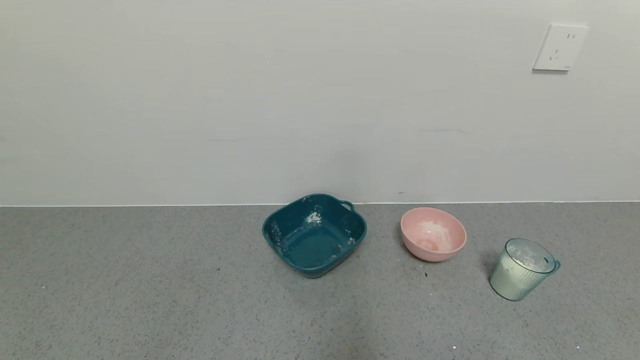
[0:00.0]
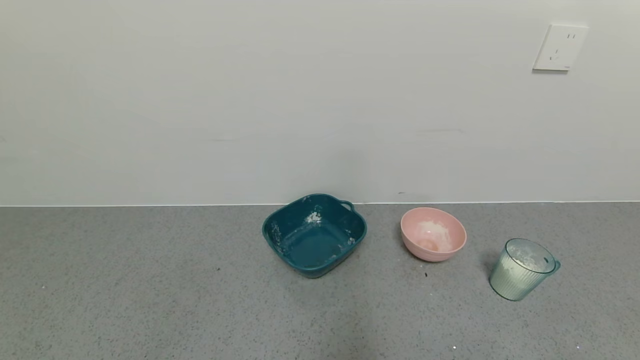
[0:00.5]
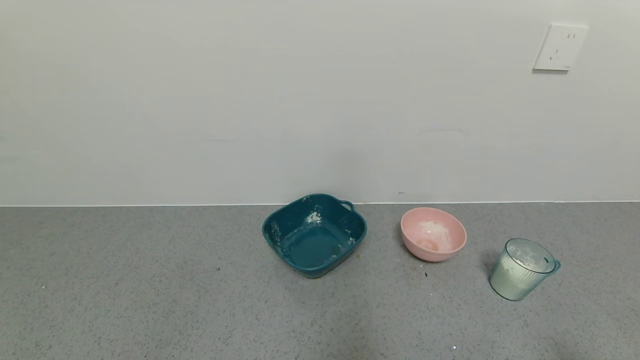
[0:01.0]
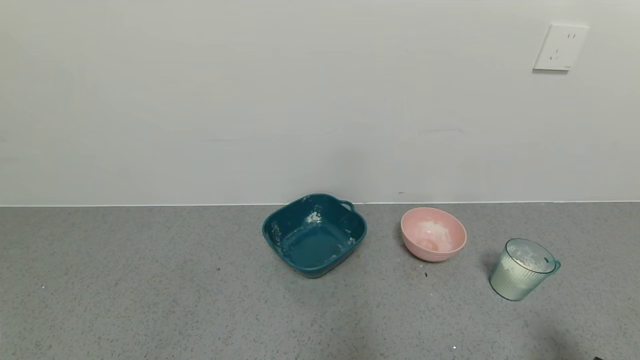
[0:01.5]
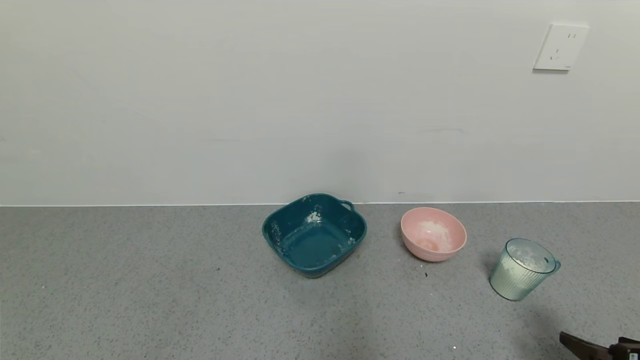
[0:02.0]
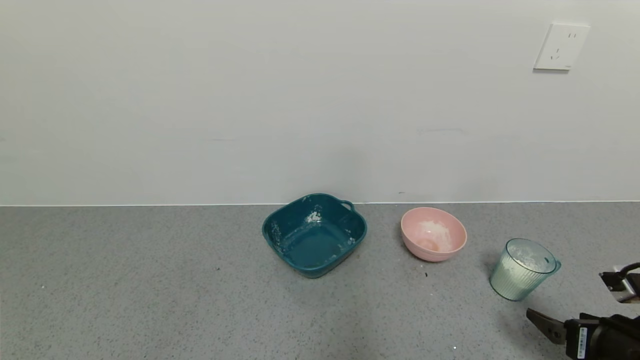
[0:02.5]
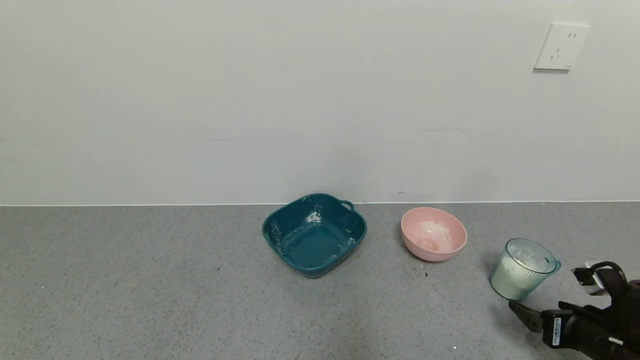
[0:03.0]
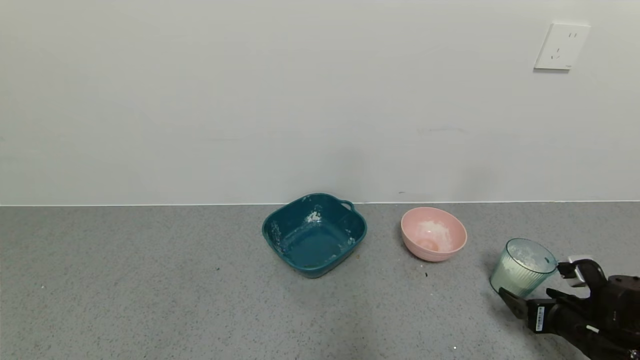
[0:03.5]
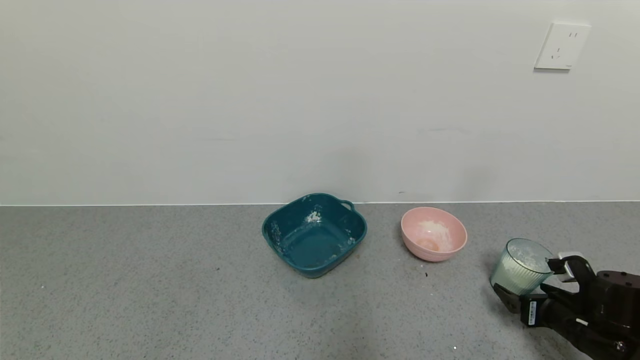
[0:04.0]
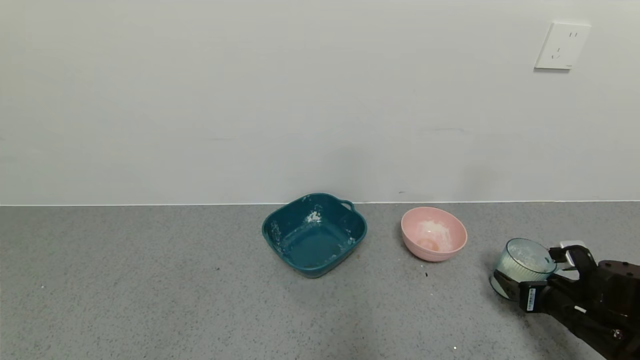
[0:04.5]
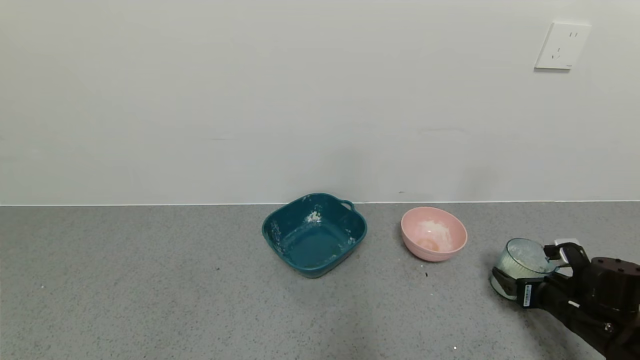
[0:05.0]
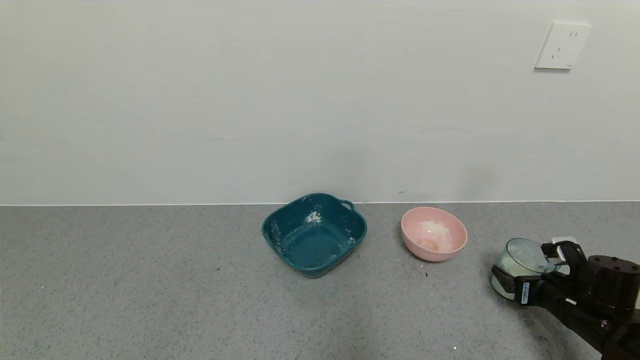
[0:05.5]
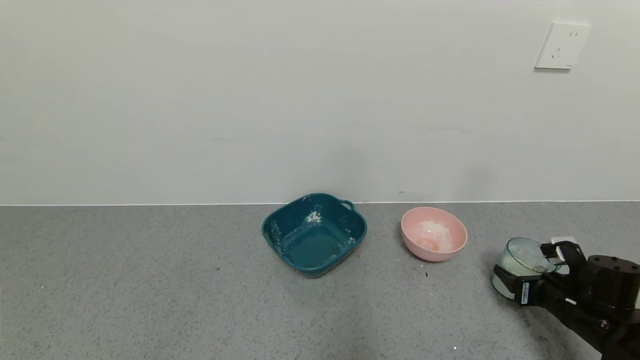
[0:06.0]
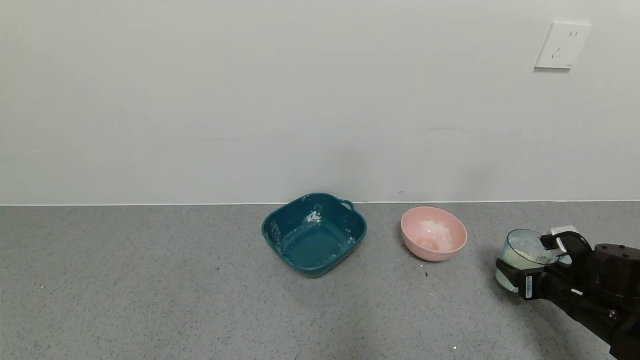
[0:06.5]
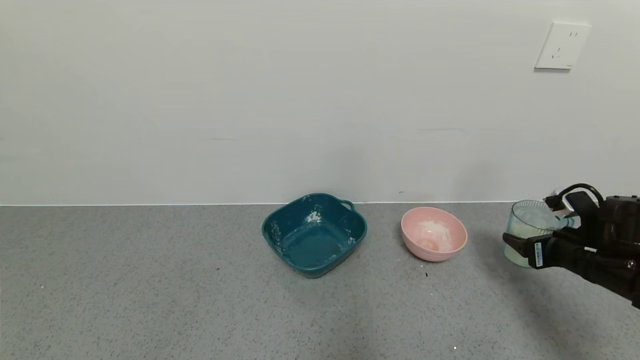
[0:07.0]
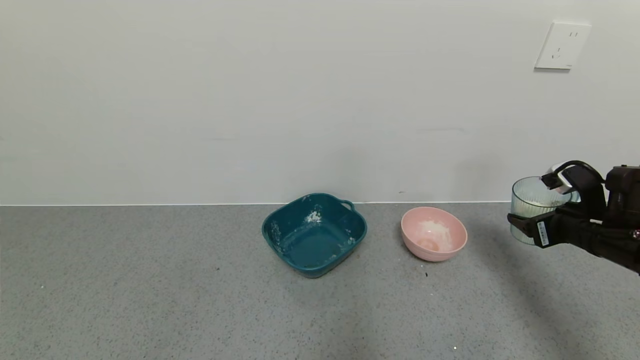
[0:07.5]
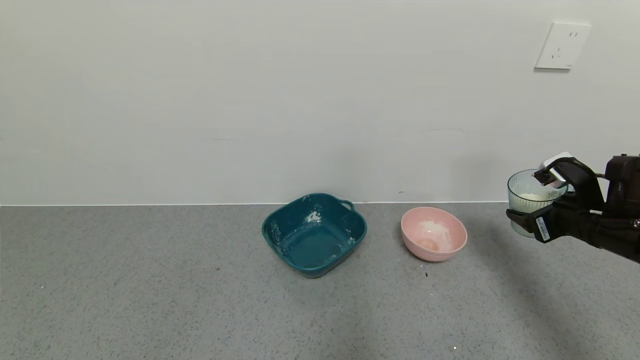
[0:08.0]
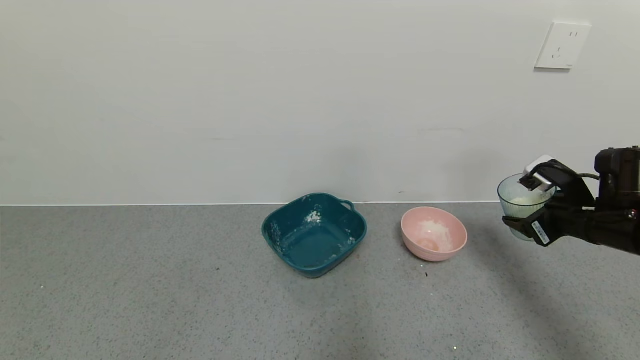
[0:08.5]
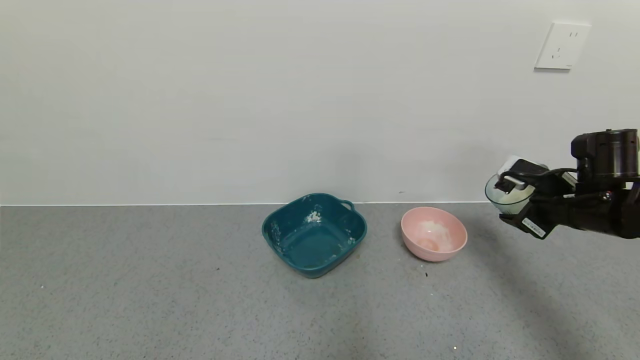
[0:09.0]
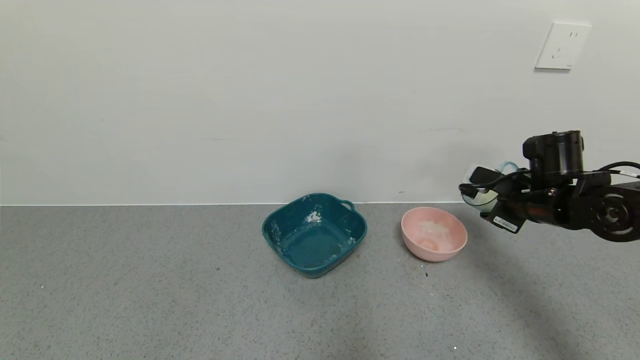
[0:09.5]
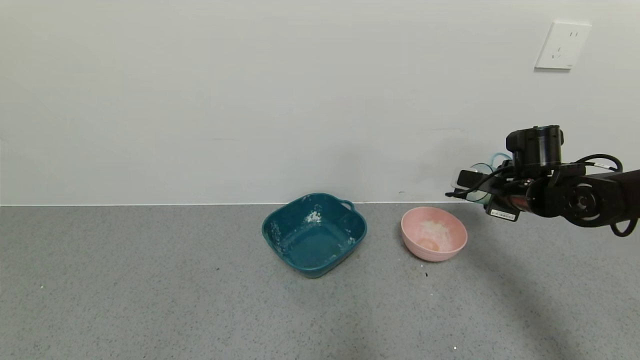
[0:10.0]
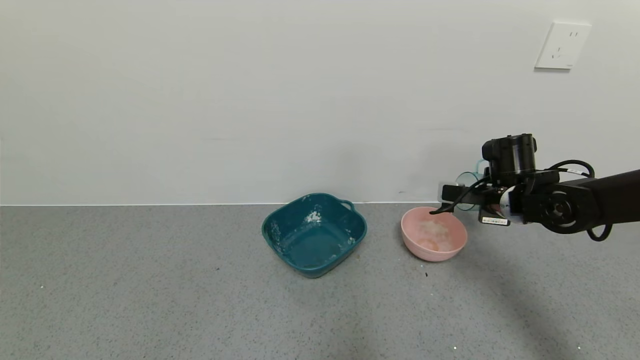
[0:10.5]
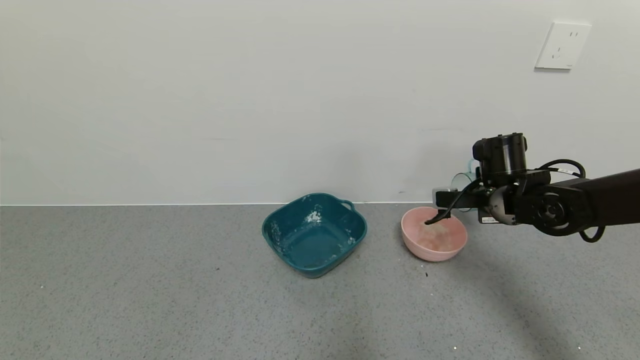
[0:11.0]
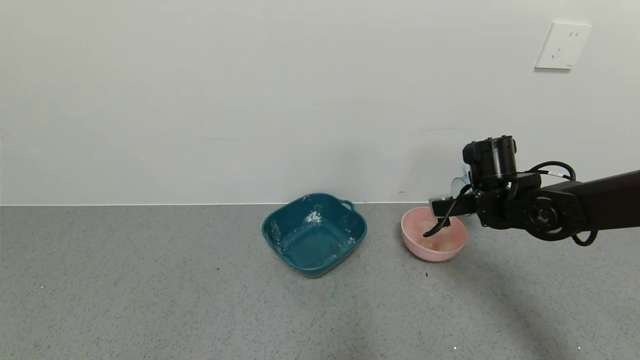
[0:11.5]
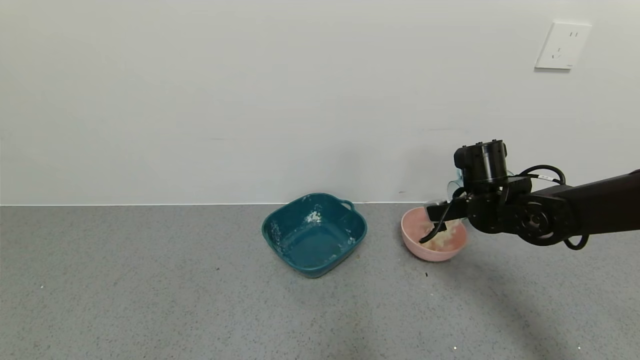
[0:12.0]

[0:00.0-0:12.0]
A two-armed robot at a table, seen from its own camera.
Task of the whole recording: use a gripper to pick up the cup and pour the powder into a bowl or tray.
Step, 0:00.0 to 0:05.5: Grasp the glass of powder with the right gripper.
0:00.0 to 0:02.0: The right gripper goes approximately 15 cm forward.
0:02.0 to 0:04.0: The right gripper moves forward and downward, some 15 cm.
0:04.0 to 0:06.0: The right gripper closes its fingers.
0:06.0 to 0:08.0: The right gripper travels upward by approximately 15 cm.
0:08.0 to 0:10.0: The right gripper moves forward and to the left, about 10 cm.
0:10.0 to 0:12.0: The right gripper heads to the left, covering roughly 5 cm.

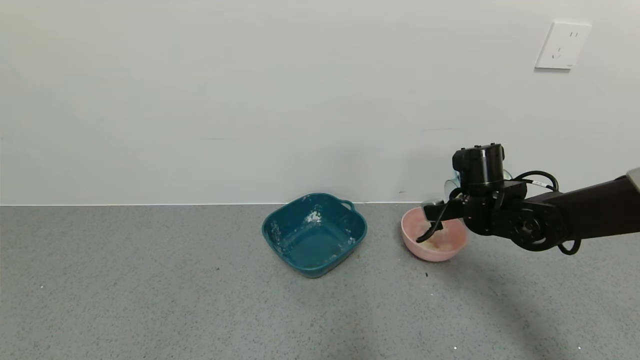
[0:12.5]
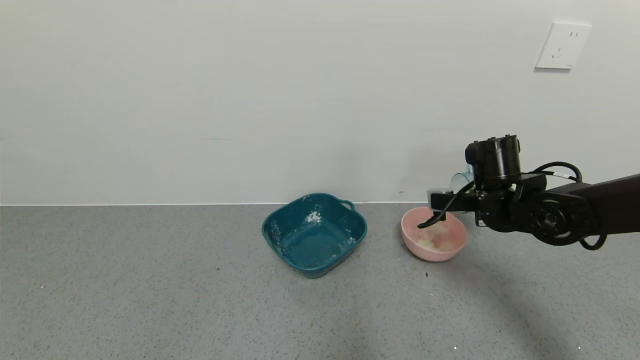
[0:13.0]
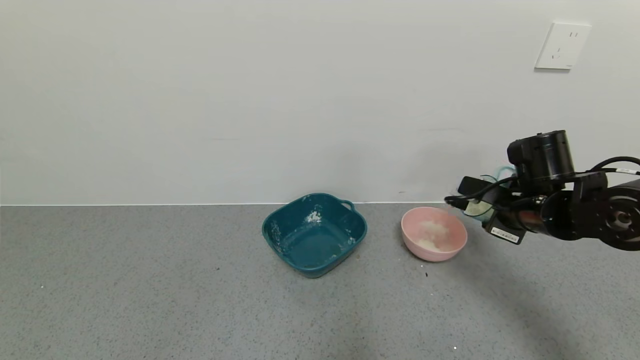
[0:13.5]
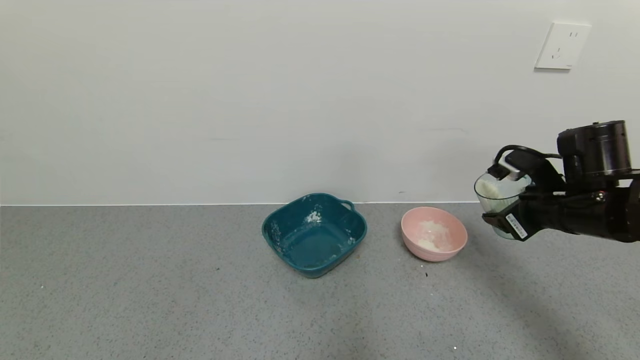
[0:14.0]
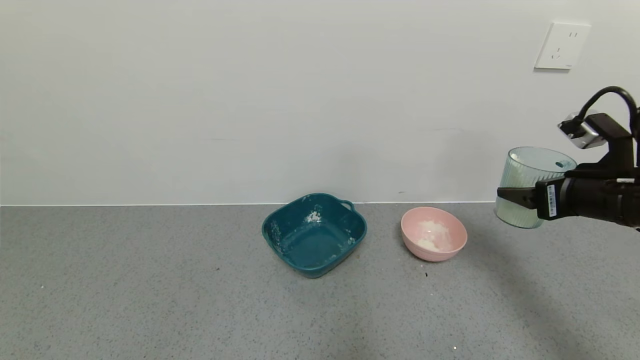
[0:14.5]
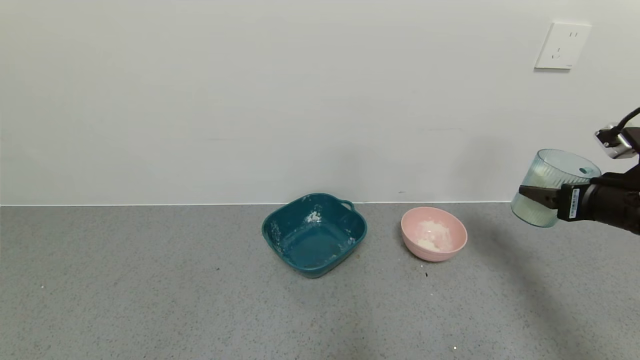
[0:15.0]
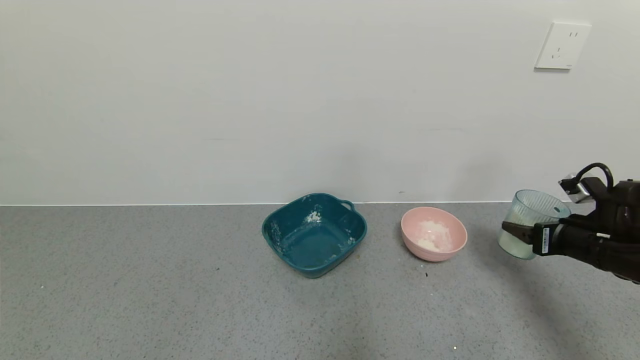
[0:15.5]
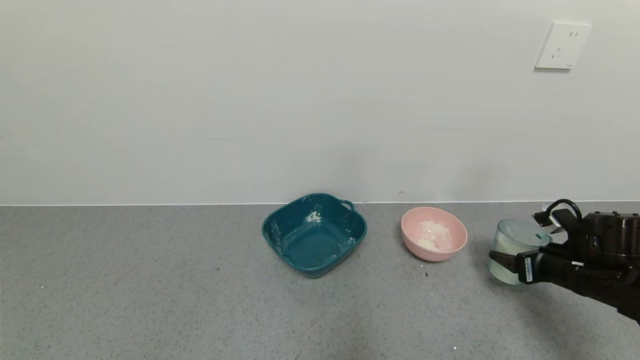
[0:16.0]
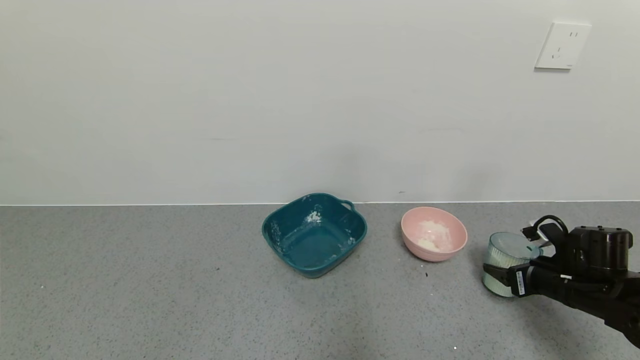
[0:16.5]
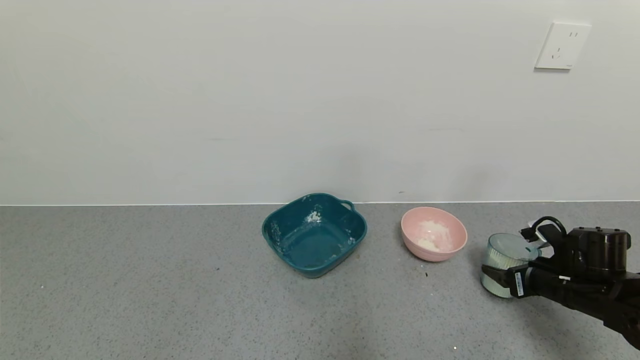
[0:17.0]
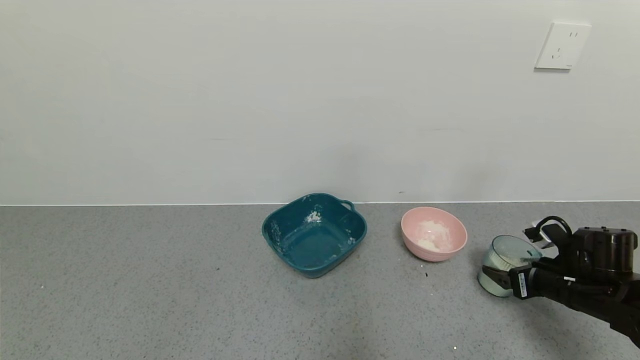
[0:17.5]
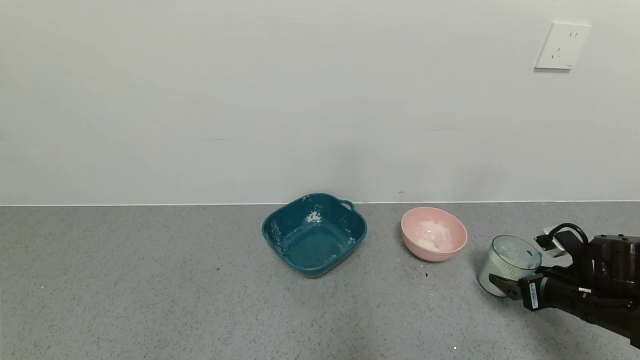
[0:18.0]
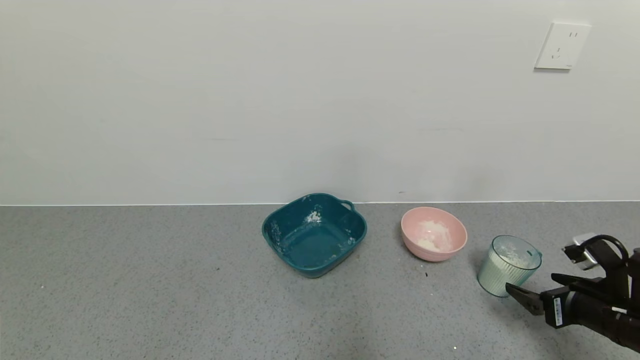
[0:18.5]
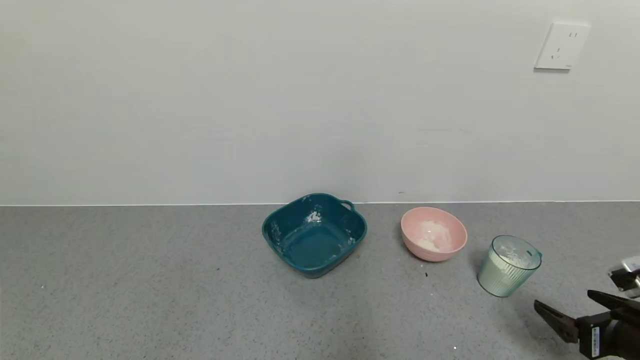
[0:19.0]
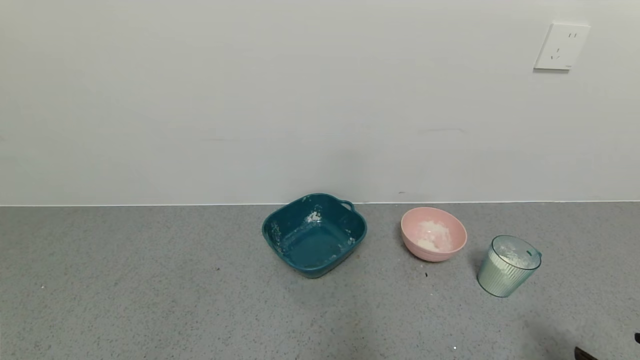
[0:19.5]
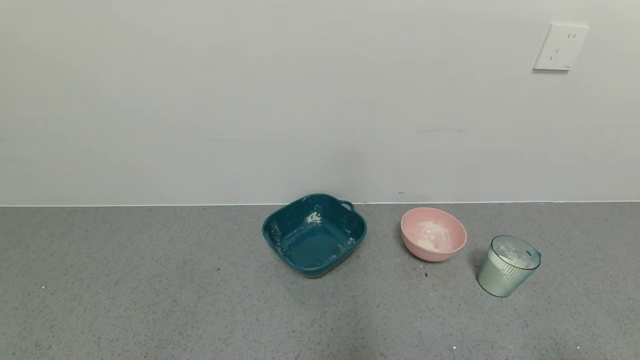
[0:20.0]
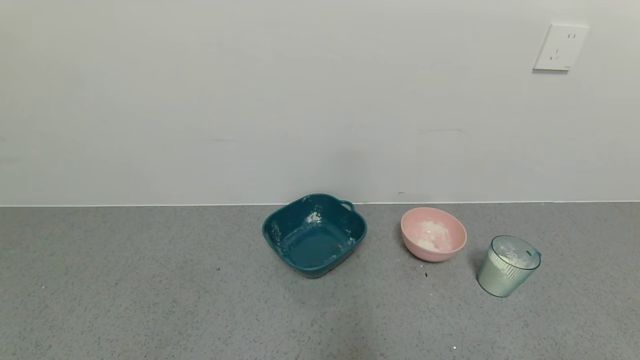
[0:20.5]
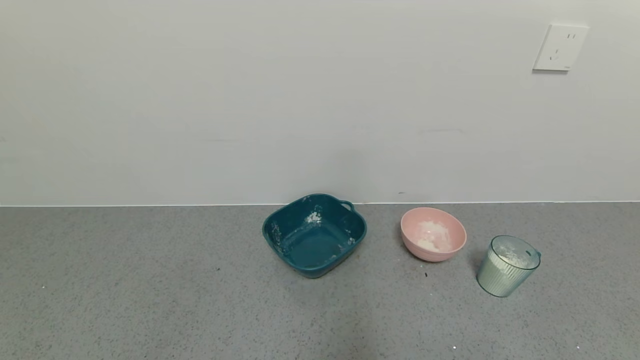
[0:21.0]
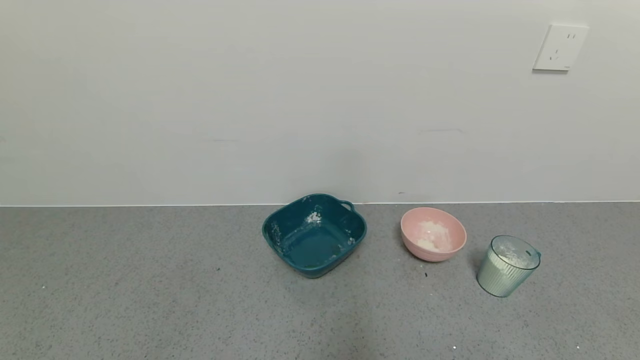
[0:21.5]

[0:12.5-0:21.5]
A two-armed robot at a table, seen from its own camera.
Task of the whole recording: use a gripper to pick up the cup and pour the powder into a bowl or tray.
Step, 0:13.0 to 0:18.0: Place the glass cup down with the right gripper.
0:12.5 to 0:14.5: The right gripper travels backward, to the right and upward by approximately 15 cm.
0:14.5 to 0:17.0: The right gripper shifts some 20 cm downward.
0:17.0 to 0:19.5: The right gripper is displaced backward by roughly 20 cm, and opens.
